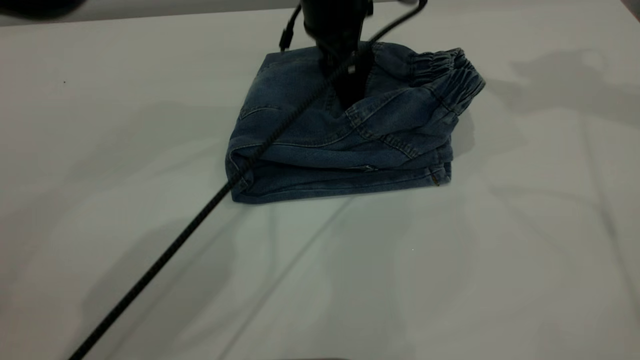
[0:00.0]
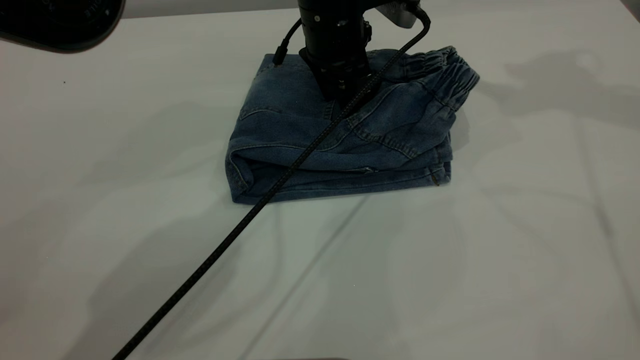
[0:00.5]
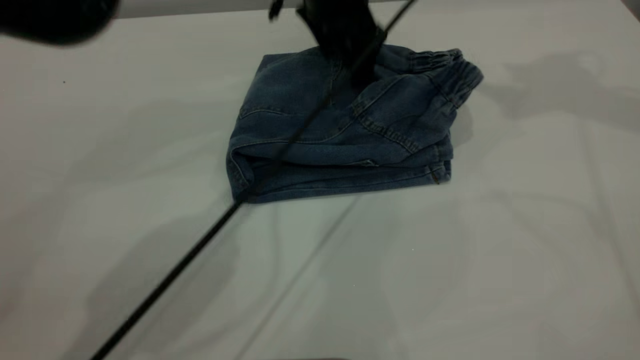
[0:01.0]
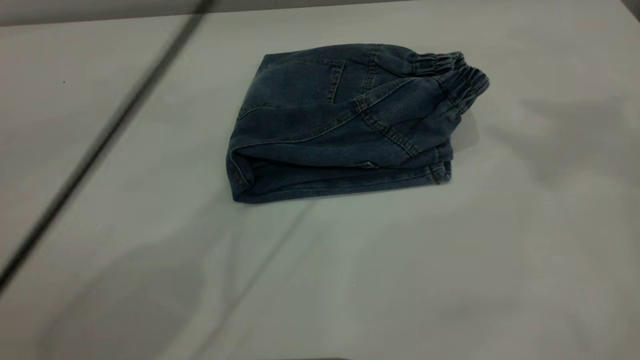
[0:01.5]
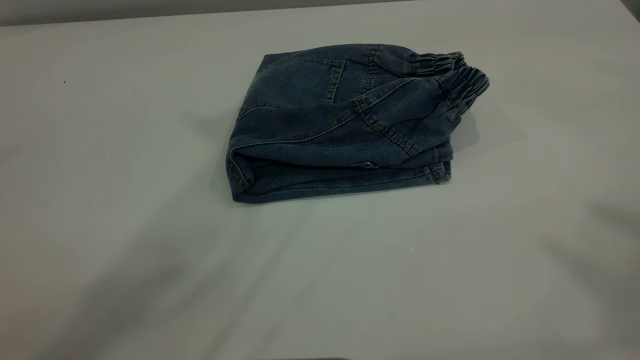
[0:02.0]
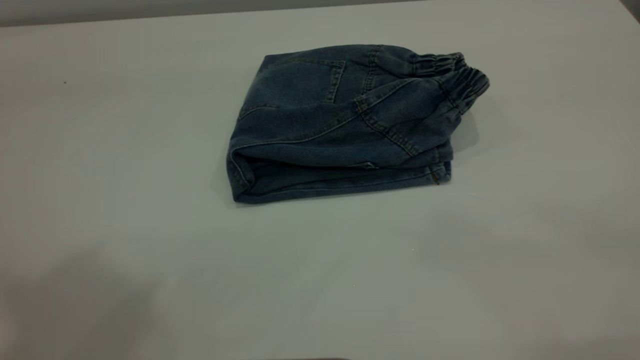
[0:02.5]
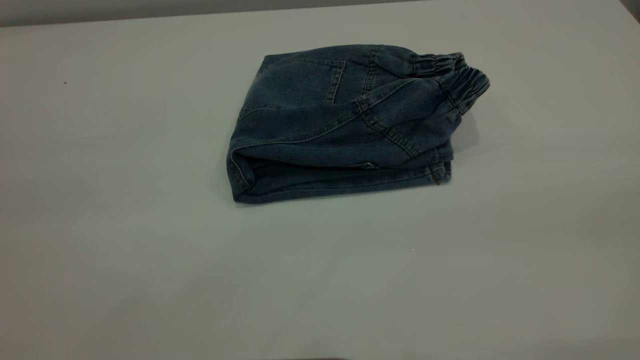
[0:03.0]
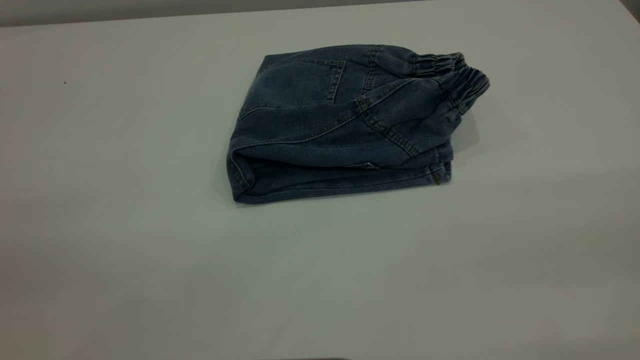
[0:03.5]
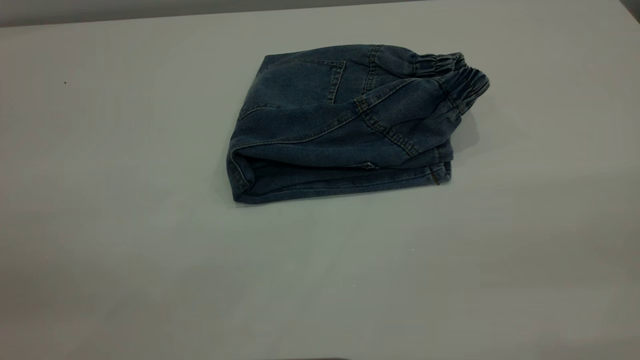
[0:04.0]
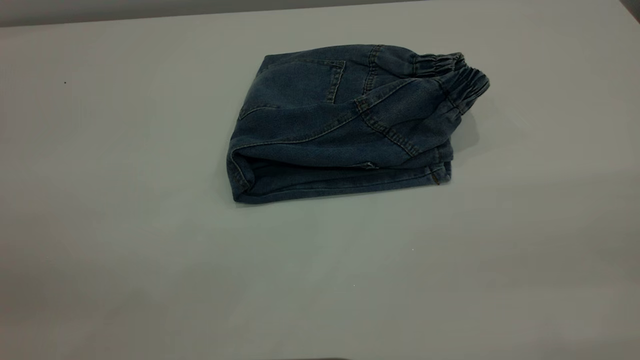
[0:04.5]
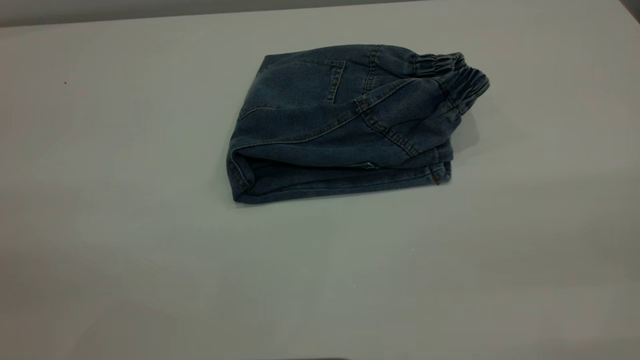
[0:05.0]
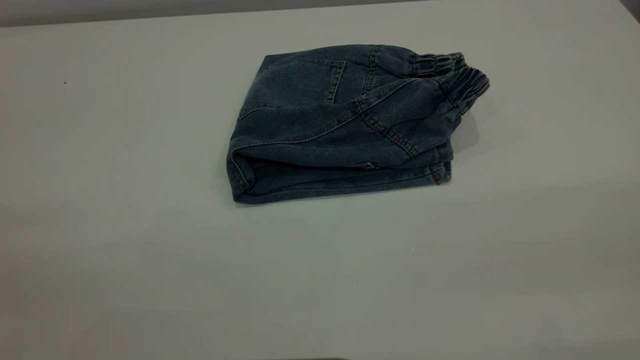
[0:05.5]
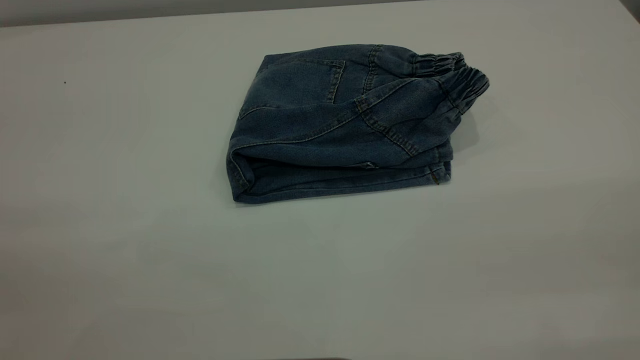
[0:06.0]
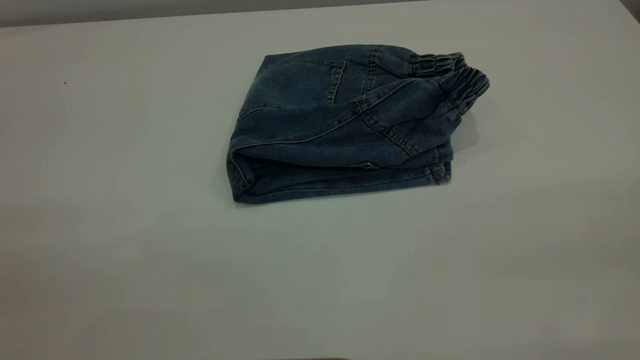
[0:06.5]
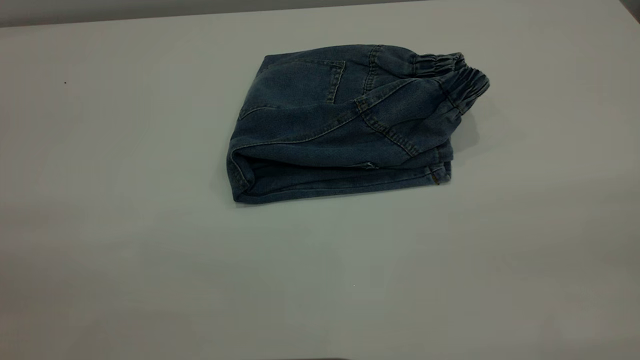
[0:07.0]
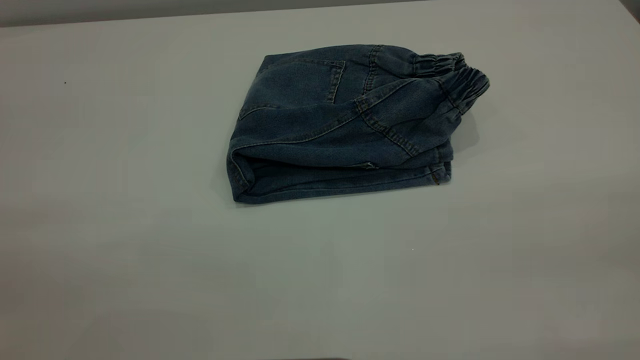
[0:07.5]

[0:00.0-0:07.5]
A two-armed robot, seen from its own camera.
0:00.0 to 0:02.0: The right gripper heads backward and upward, covering about 35 cm, while the left gripper moves upward, approximately 40 cm.
